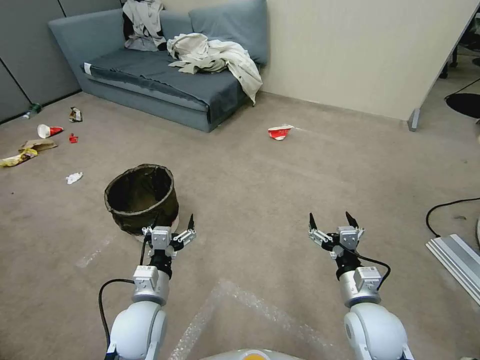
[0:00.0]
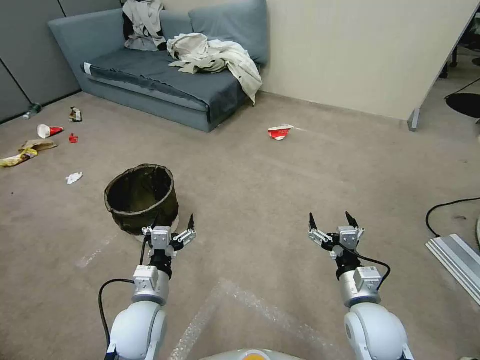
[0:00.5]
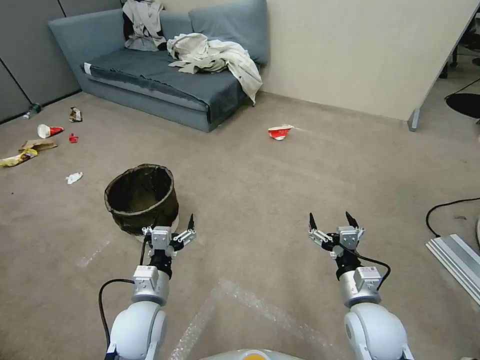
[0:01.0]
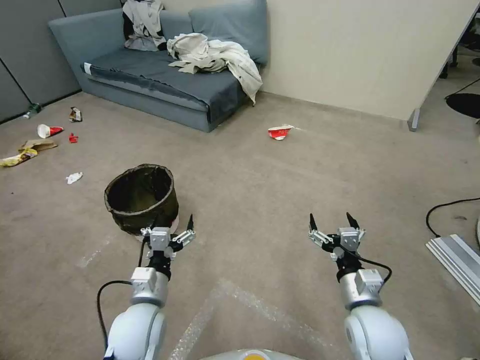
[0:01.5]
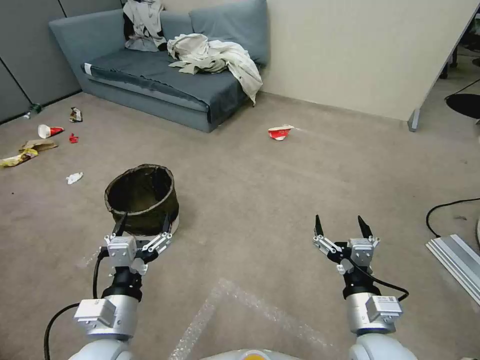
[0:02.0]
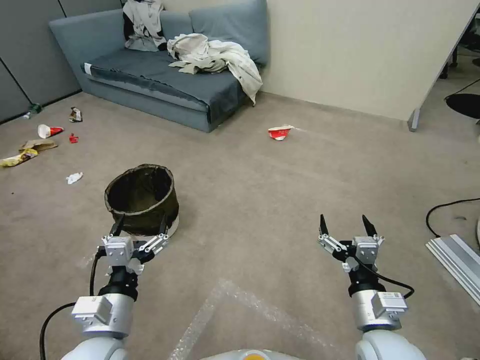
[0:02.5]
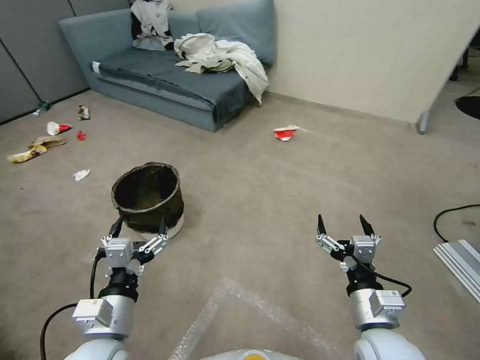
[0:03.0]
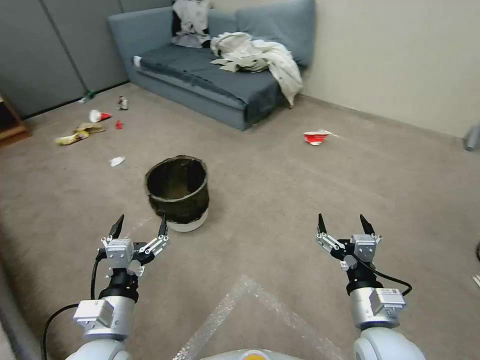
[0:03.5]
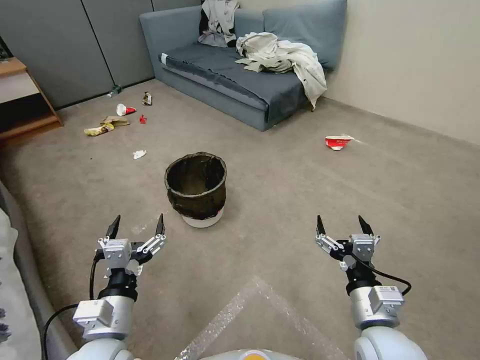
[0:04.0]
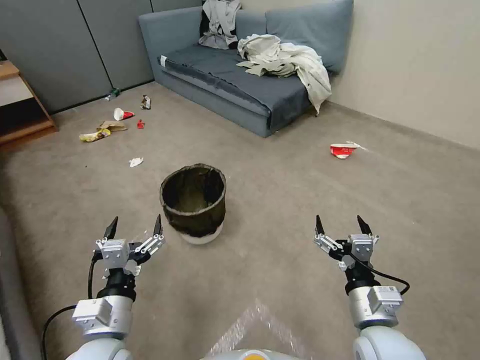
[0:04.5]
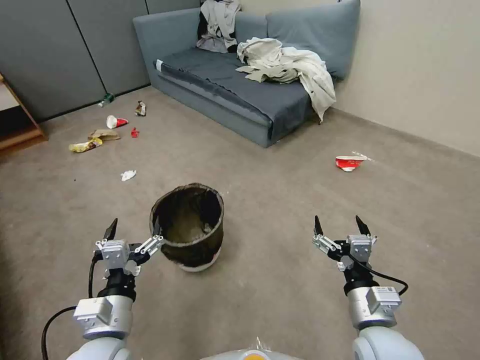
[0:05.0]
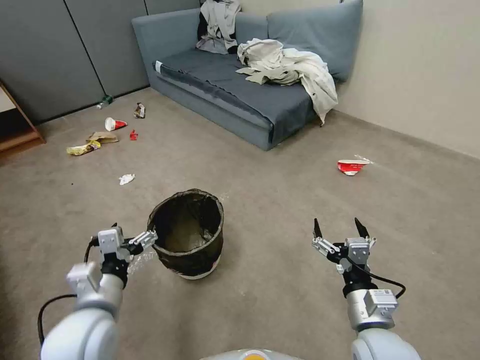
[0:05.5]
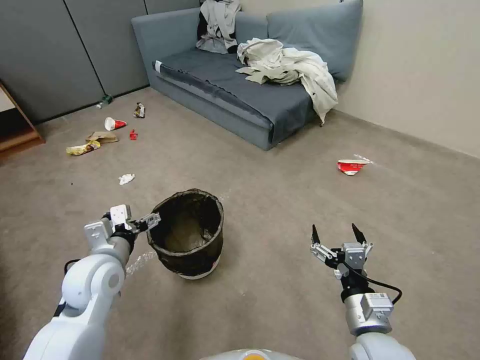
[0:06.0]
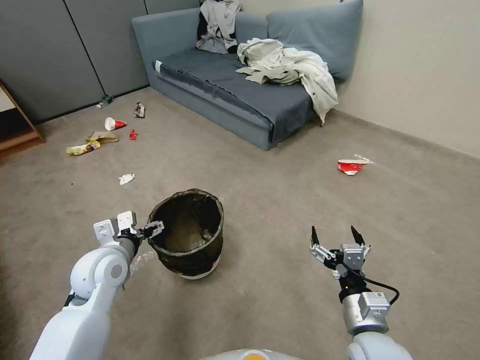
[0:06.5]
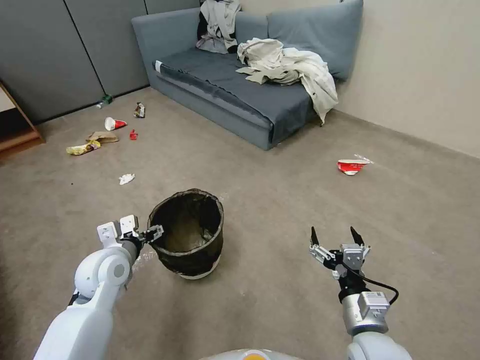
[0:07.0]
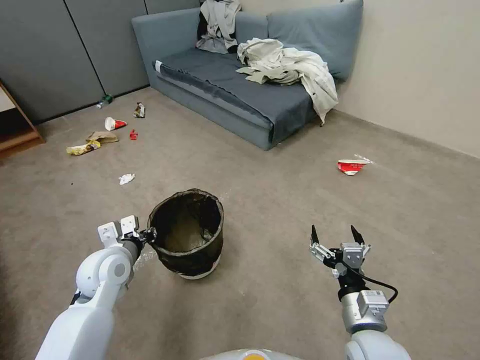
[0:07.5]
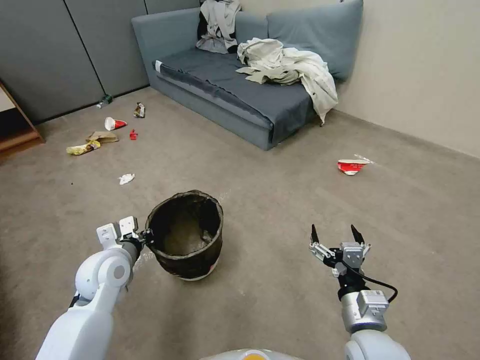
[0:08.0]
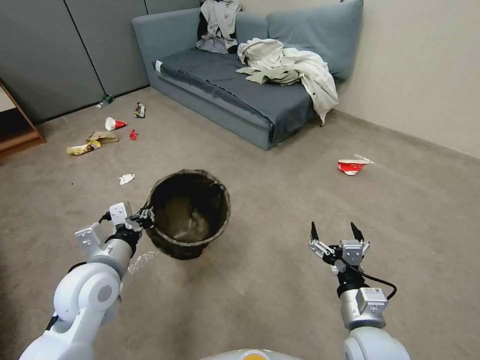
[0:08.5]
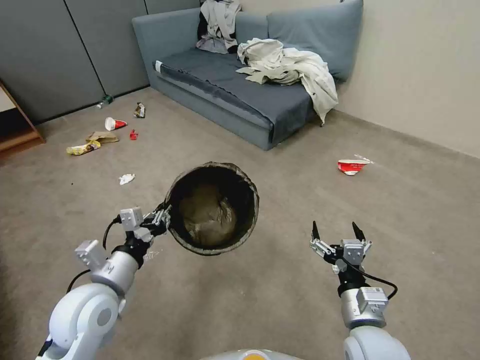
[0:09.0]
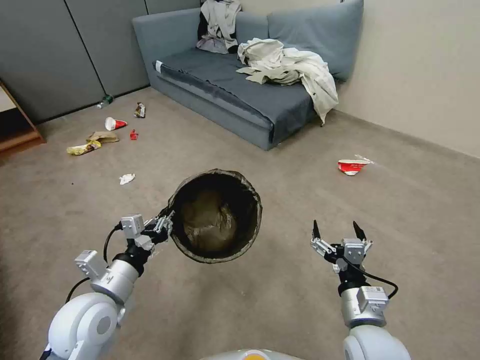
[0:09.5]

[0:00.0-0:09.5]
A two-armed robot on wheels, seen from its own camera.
Task of the whole recording: Pick up the trash can from the floor.
0:04.0 to 0:05.5: The left gripper moves roughly 5 cm.
0:05.5 to 0:07.5: The left gripper travels forward by about 10 cm, and closes.
0:07.5 to 0:09.5: The left gripper shifts some 10 cm backward.
